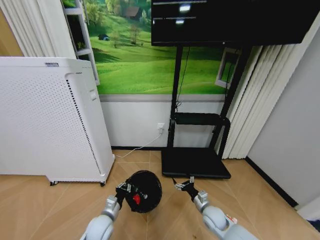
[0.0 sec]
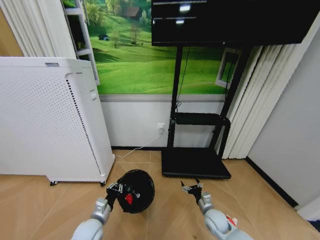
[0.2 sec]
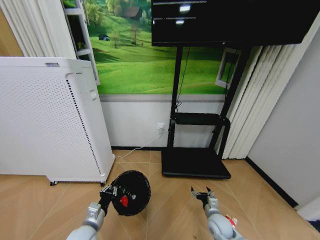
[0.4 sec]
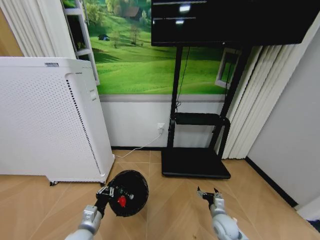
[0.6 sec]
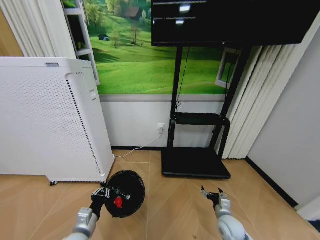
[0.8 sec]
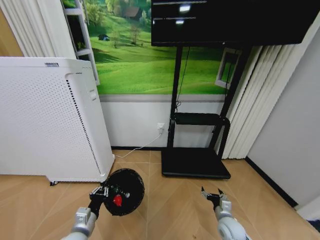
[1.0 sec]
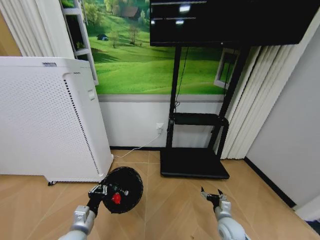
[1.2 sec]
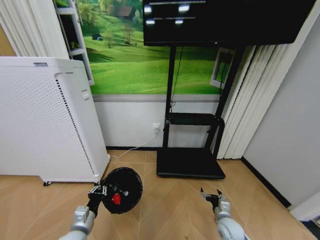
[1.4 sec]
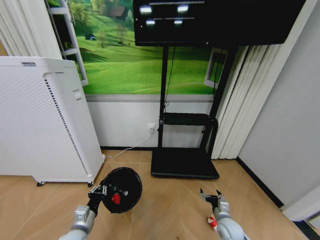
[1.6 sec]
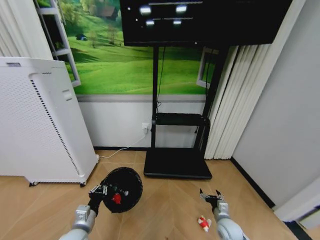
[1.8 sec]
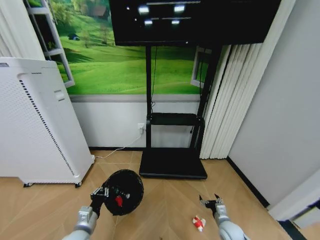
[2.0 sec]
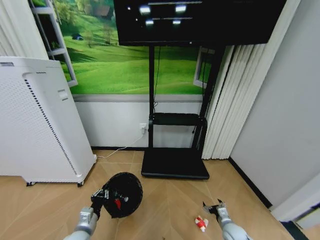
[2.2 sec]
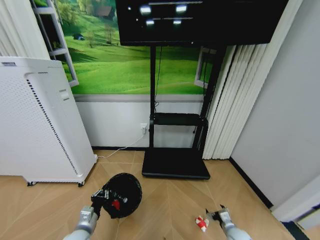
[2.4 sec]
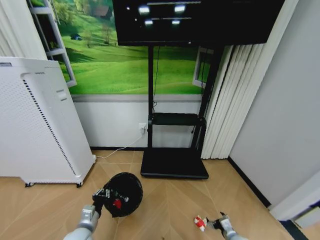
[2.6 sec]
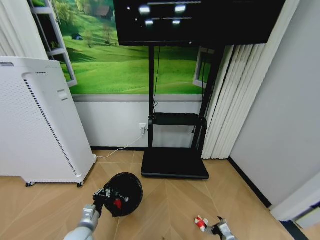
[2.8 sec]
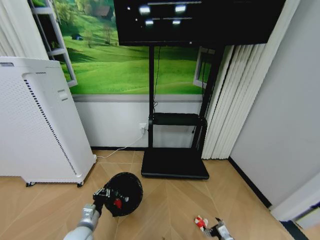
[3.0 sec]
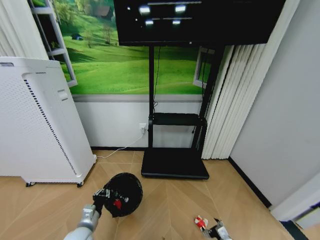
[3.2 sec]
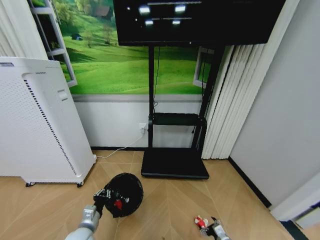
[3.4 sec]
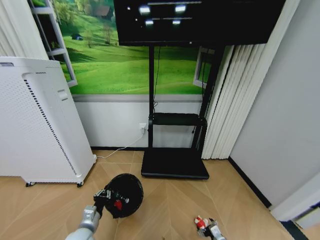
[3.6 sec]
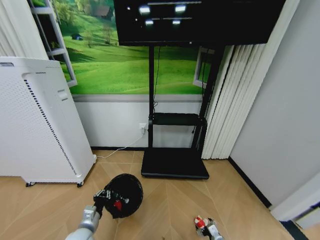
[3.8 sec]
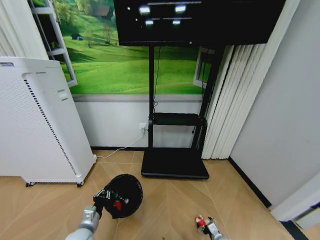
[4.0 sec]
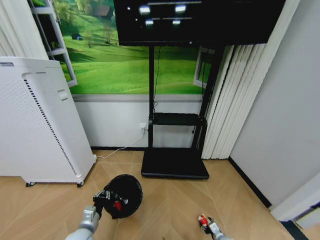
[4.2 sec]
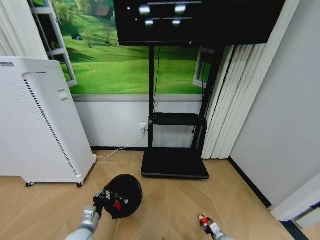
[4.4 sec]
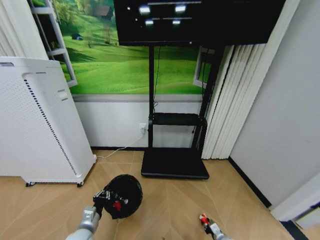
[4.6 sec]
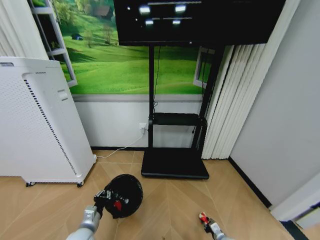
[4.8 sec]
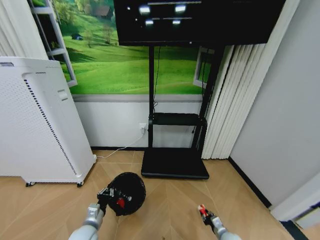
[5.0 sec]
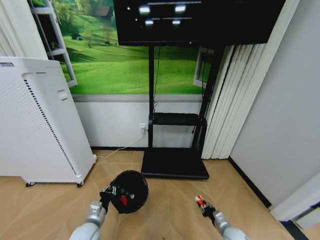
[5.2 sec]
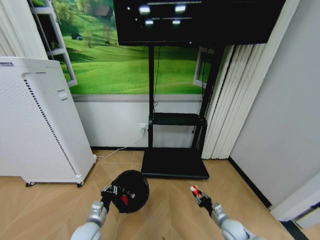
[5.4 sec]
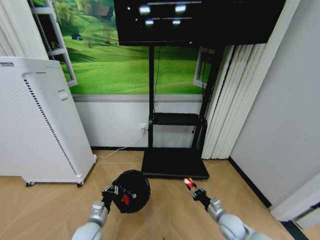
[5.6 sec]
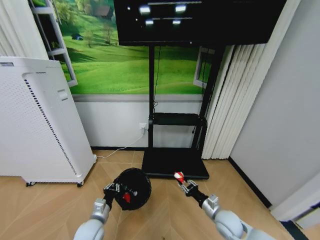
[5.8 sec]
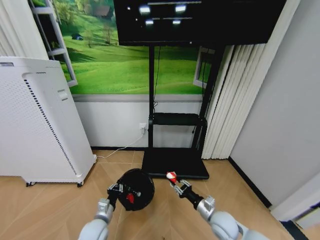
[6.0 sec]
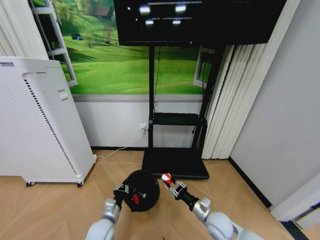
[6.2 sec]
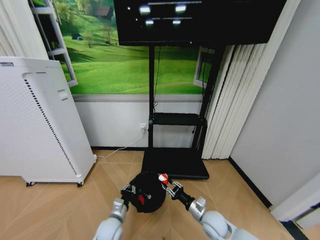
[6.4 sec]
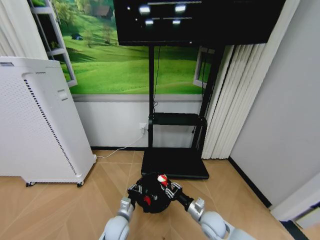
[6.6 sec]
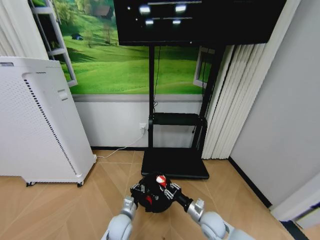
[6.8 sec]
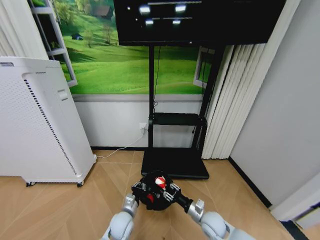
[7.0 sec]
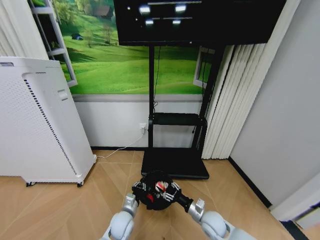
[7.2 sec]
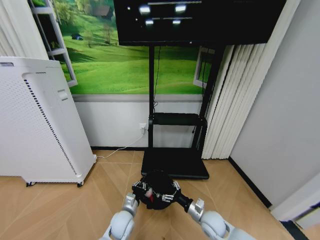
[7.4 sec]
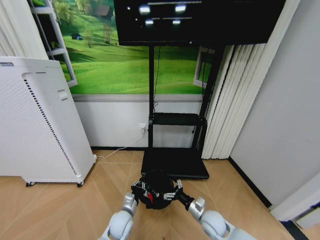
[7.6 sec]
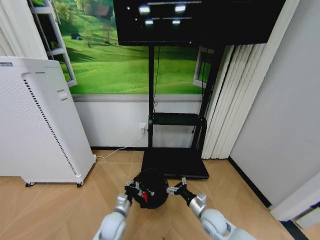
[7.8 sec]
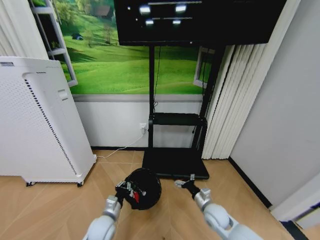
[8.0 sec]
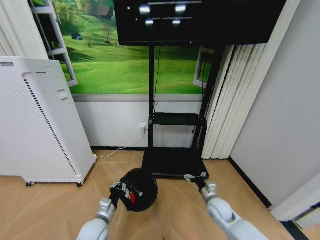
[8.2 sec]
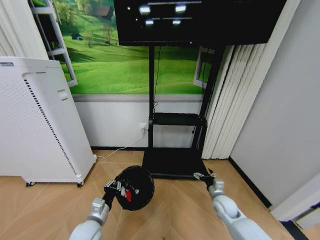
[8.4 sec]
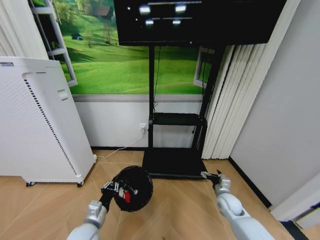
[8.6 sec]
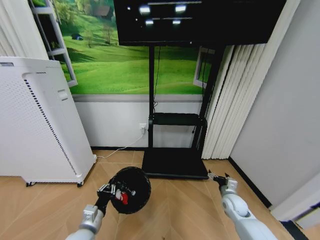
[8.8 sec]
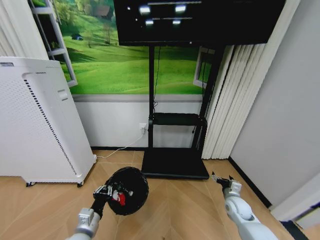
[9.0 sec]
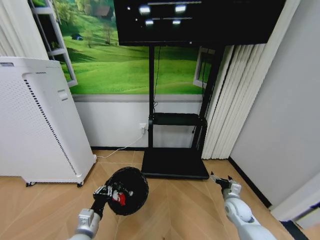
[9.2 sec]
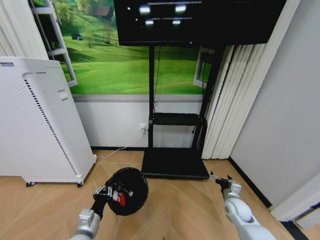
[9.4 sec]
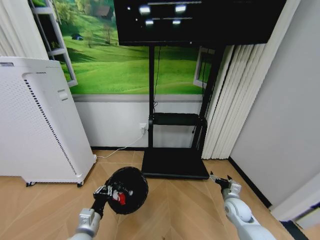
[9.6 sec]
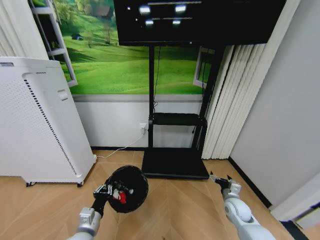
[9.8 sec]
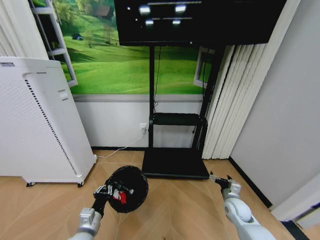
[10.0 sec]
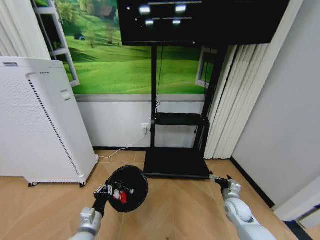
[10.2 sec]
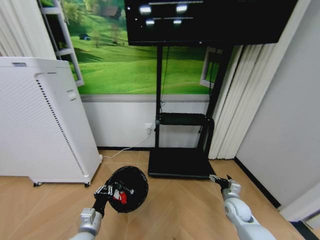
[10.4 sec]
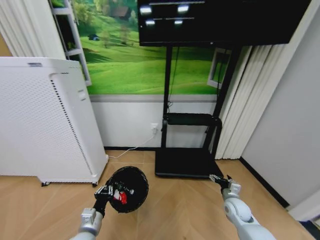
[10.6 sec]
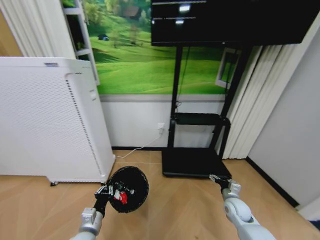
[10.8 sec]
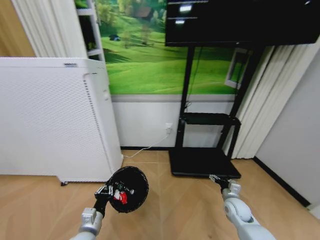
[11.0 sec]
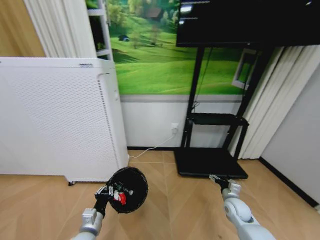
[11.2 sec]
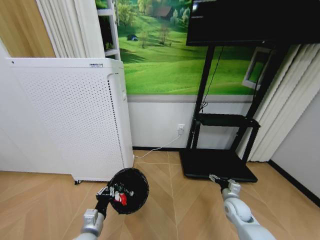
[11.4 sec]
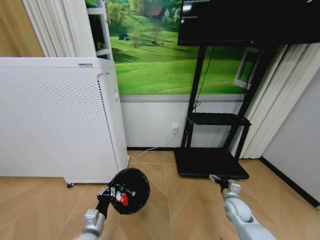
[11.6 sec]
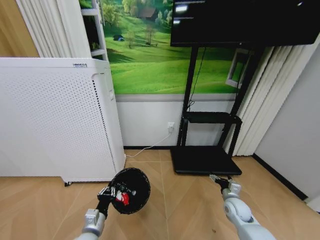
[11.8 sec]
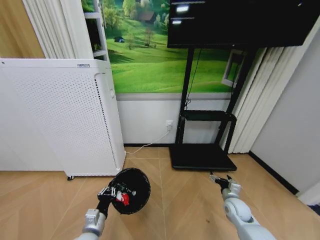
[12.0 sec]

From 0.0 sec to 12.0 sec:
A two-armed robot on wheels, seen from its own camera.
Task of the whole recording: Pick up the trash bin and place the garbage on the floor into it.
From 0.0 sec to 1.6 sec: The right gripper shifts some 5 cm to the right, while the left gripper shifts roughly 10 cm to the left, backward and upward.
From 1.6 sec to 3.0 sec: The right gripper goes some 10 cm downward and backward.
From 3.0 sec to 4.4 sec: The right gripper travels downward by some 5 cm, and closes.
From 4.4 sec to 6.0 sec: The left gripper shifts about 5 cm to the right; the right gripper goes approximately 25 cm upward and to the left, and closes its fingers.
From 6.0 sec to 7.6 sec: The left gripper travels to the right by roughly 10 cm. Meanwhile the right gripper opens its fingers.
From 7.6 sec to 9.0 sec: The right gripper heads to the right, covering about 15 cm; the left gripper heads to the left, backward and upward, covering approximately 15 cm.

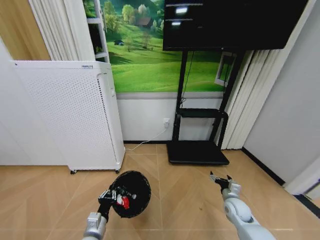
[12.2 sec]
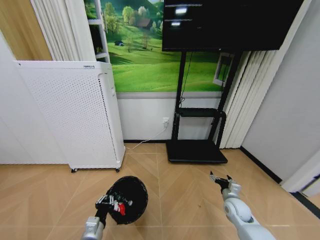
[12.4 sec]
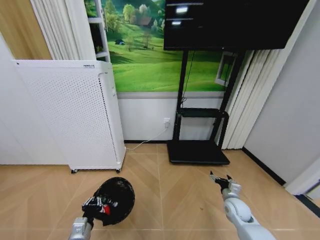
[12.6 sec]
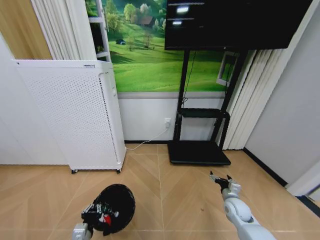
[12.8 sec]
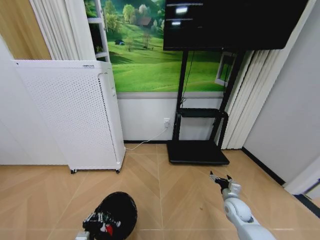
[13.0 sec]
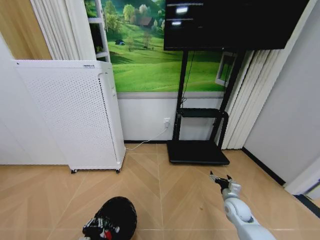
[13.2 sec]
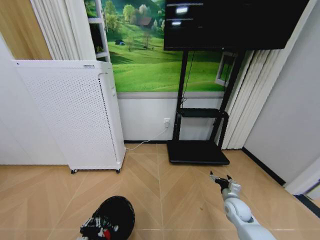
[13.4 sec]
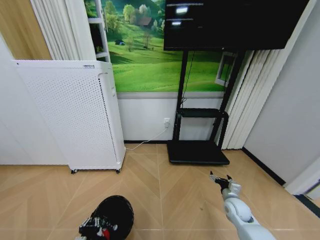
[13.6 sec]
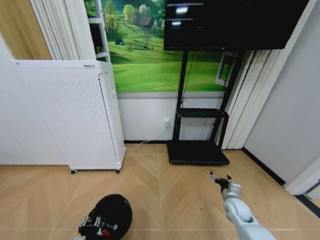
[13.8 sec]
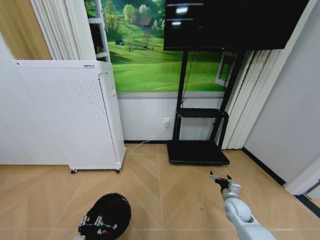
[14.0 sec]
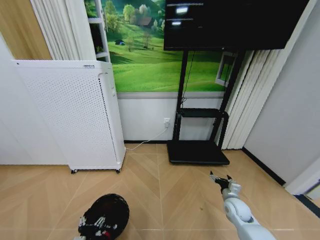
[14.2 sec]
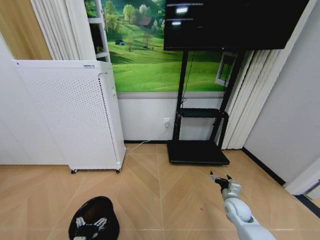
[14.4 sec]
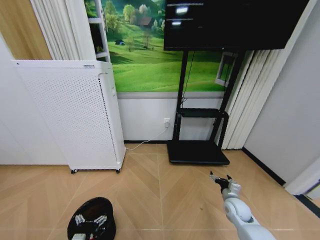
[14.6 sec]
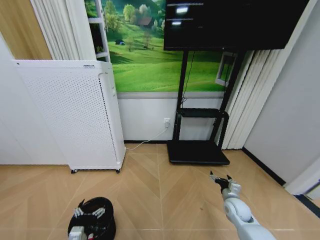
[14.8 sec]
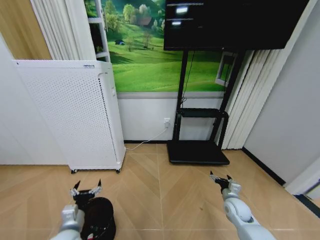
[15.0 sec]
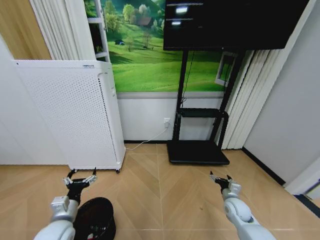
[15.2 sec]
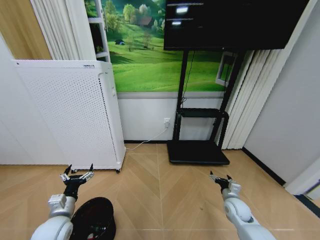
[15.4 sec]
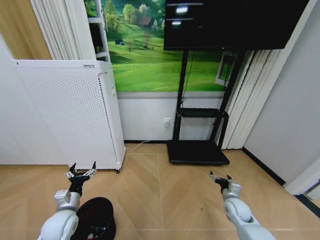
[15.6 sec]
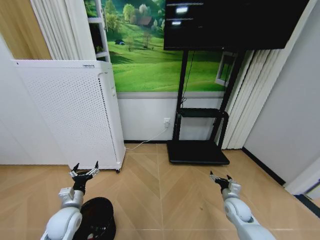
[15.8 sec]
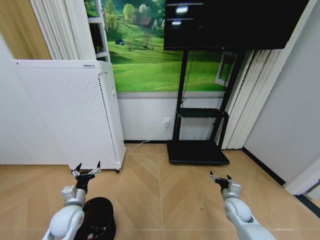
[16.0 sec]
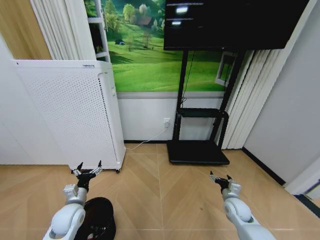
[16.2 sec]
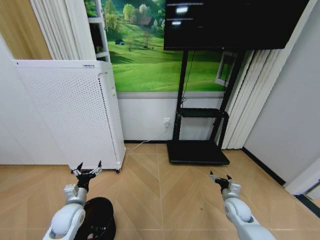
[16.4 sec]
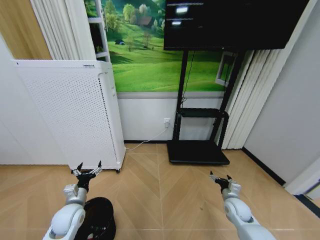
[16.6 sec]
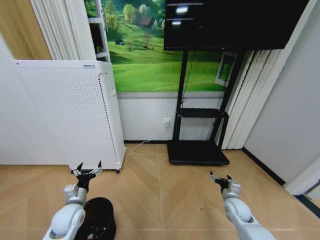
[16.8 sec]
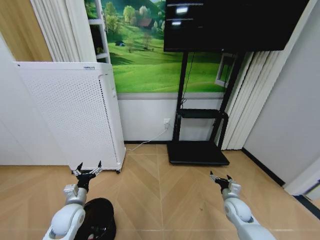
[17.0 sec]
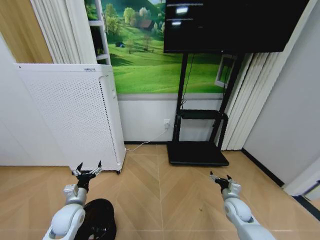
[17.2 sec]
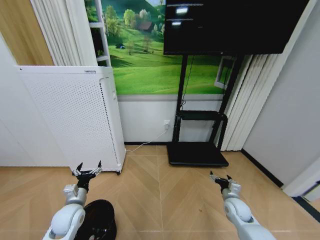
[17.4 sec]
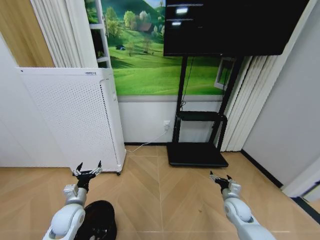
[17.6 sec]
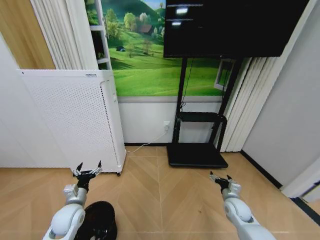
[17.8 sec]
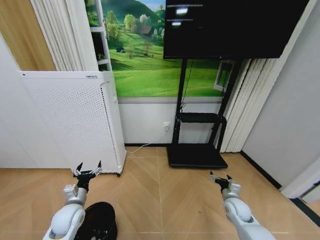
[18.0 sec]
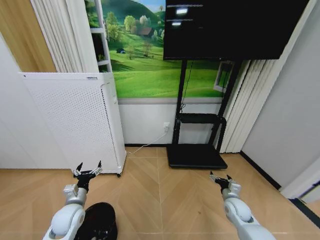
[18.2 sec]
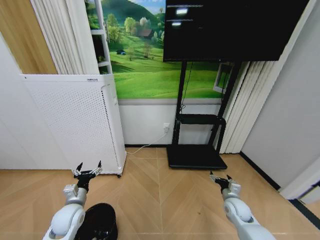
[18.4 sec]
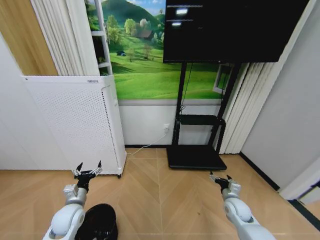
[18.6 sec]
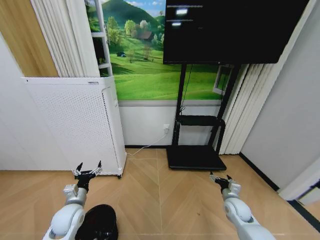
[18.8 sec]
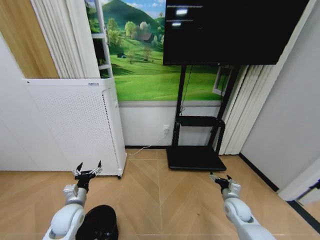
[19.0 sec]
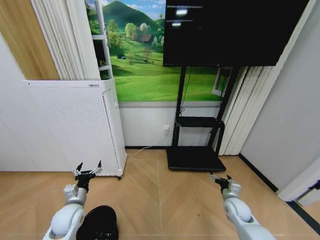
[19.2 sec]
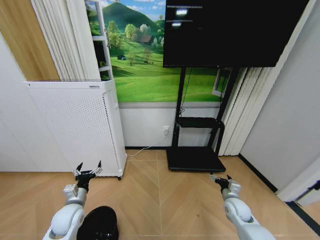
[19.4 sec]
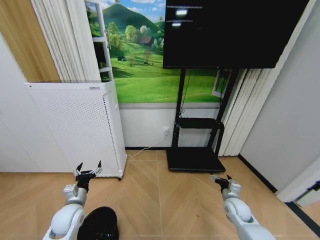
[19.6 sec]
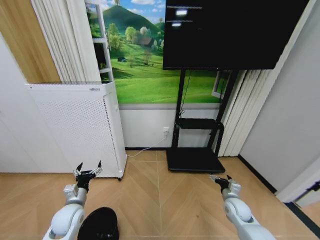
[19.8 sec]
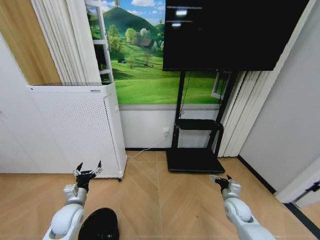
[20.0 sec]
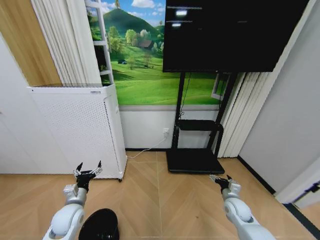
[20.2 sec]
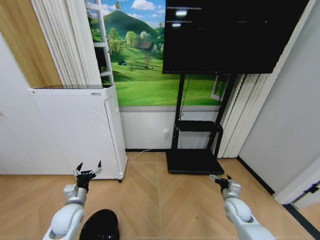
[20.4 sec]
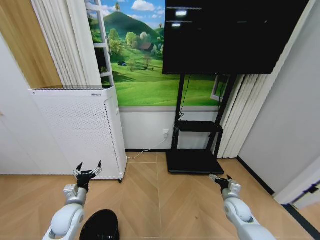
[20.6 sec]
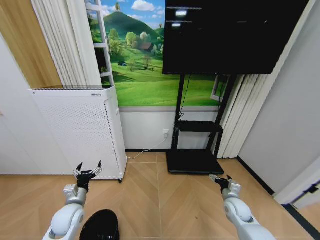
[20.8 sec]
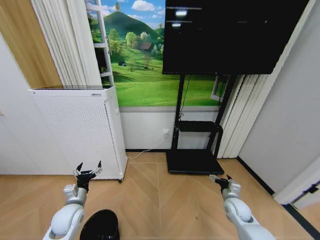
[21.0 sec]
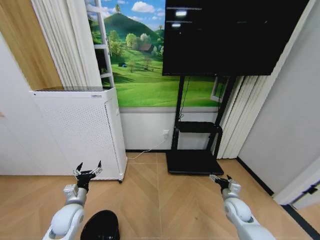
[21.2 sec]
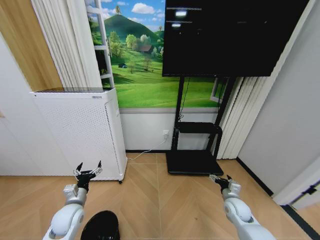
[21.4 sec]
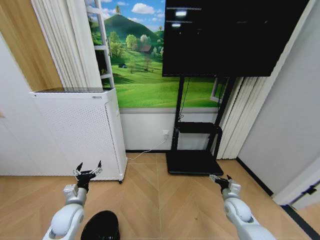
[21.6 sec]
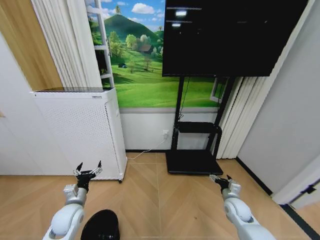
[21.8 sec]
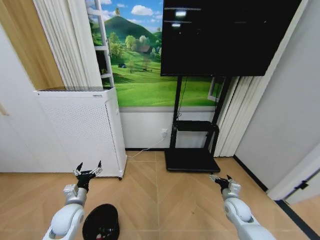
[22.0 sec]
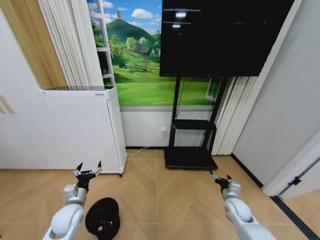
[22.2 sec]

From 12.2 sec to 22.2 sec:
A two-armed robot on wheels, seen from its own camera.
Task of the whole recording: Pick up the trash bin and place the garbage on the floor into it.
From 12.2 sec to 13.6 sec: The left gripper travels backward and downward by about 10 cm.
From 13.6 sec to 15.0 sec: The left gripper heads upward and forward, covering some 10 cm, and opens its fingers.
From 15.0 sec to 16.4 sec: The left gripper moves forward, approximately 10 cm.
From 16.4 sec to 20.8 sec: Neither gripper changes place.
